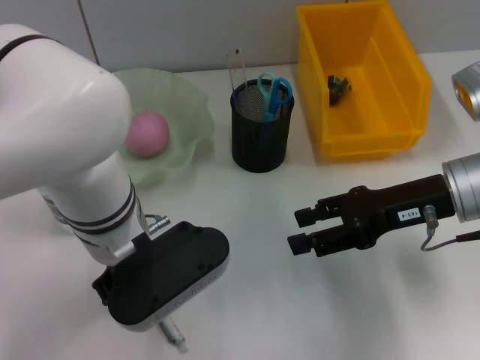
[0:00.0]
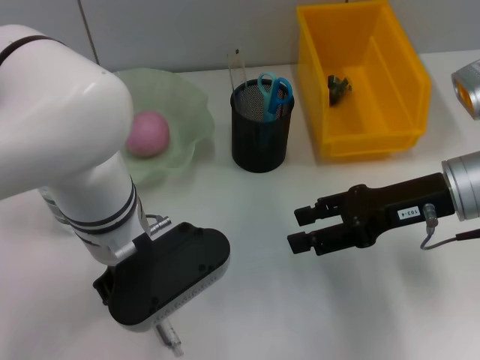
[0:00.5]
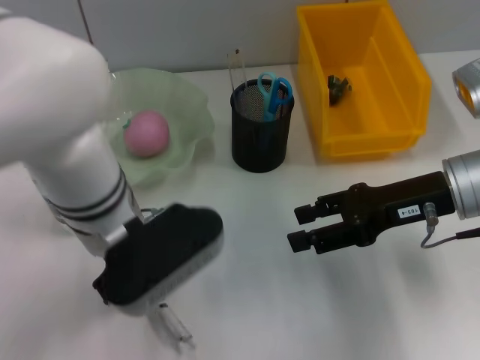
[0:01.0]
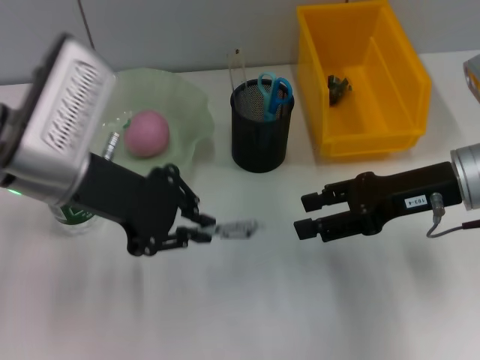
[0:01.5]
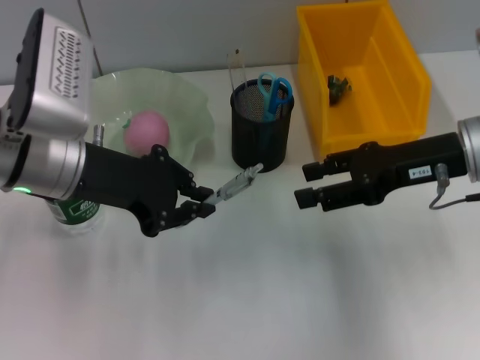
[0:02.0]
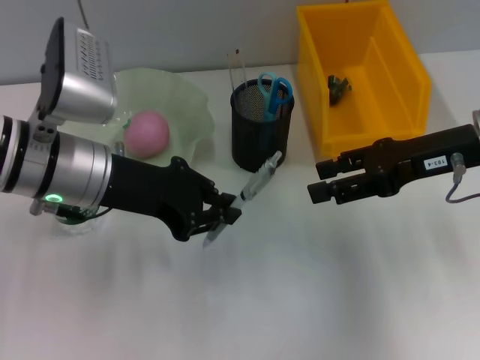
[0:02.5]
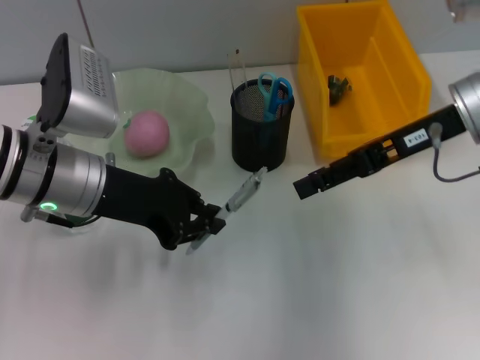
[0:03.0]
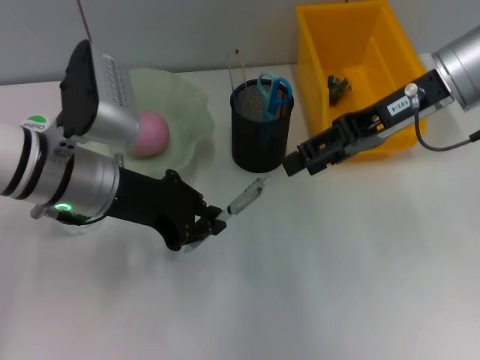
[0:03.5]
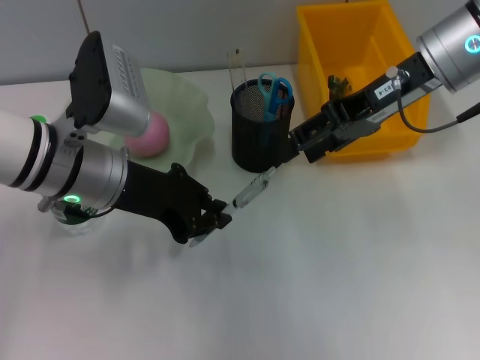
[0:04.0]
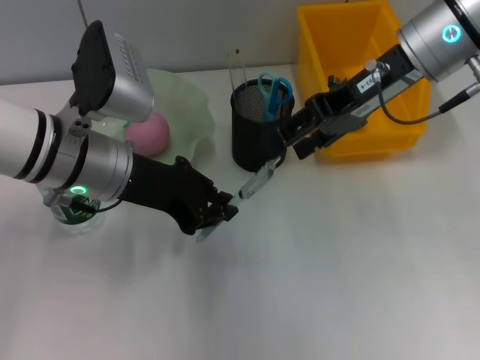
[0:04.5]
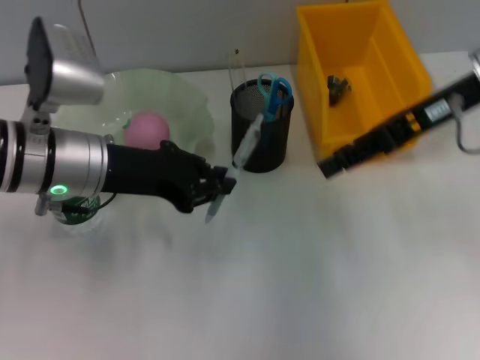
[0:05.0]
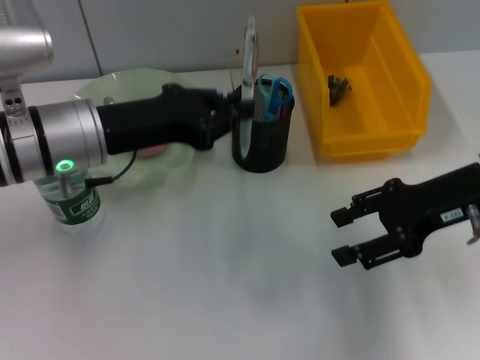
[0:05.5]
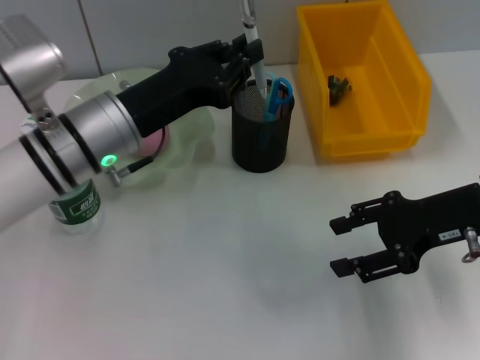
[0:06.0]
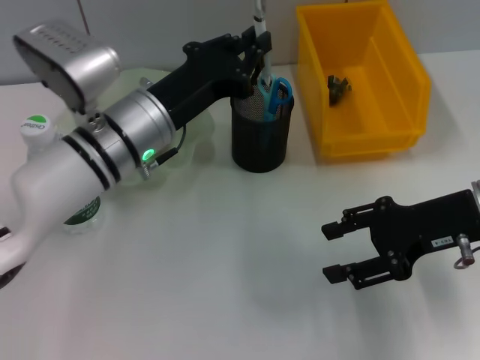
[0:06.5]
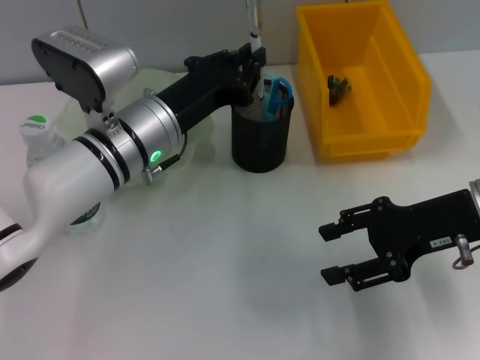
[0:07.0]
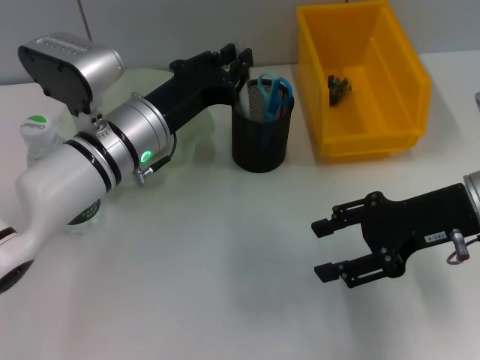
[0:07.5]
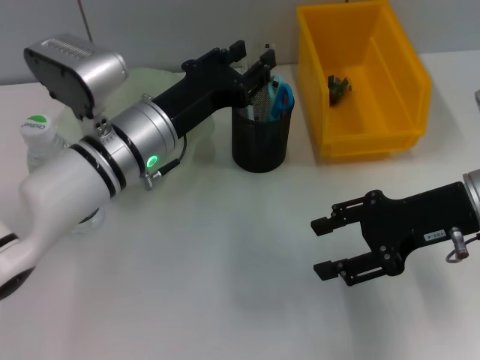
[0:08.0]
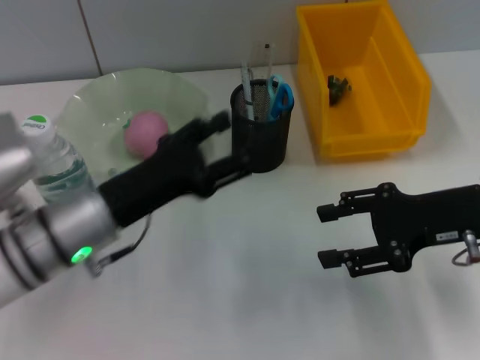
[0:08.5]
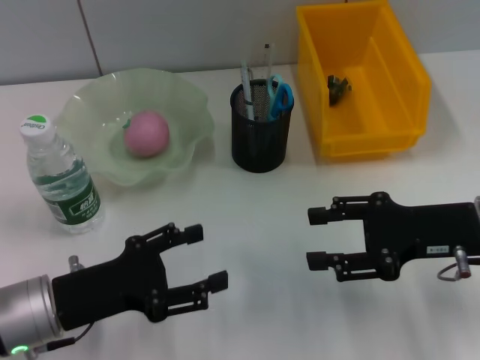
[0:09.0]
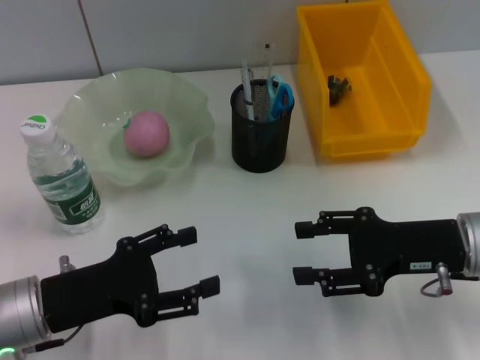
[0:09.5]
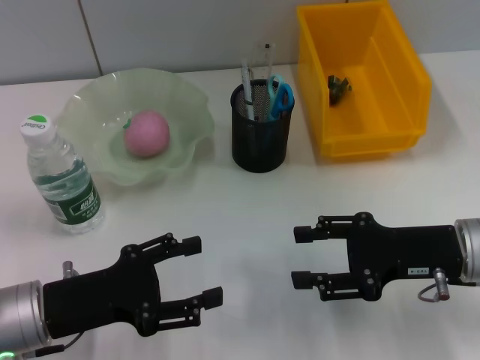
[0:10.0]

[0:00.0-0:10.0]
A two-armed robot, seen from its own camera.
Step, 0:00.5 to 0:08.0: Place the gray spring-action pen into the pen holder with the left hand.
0:00.0 to 0:02.0: The left gripper moves to the left, about 10 cm.
0:02.0 to 0:04.0: The right gripper goes some 10 cm upward and forward.
0:04.0 to 0:06.0: The right gripper moves downward, backward and to the right, roughly 15 cm.
0:06.0 to 0:08.0: The grippers make only small movements.
0:08.0 to 0:10.0: The left gripper travels backward, to the left and downward by about 20 cm, and opens its fingers, while the right gripper moves downward, some 5 cm.

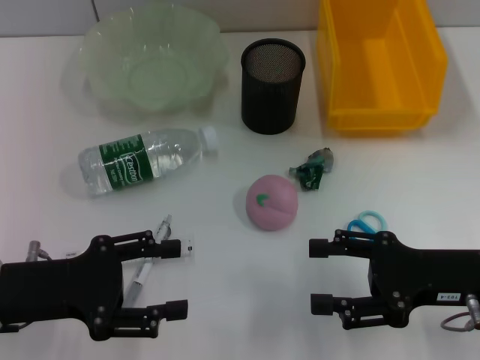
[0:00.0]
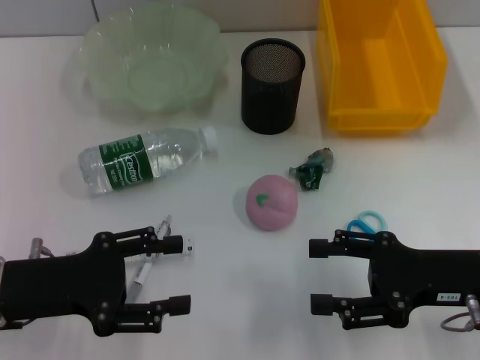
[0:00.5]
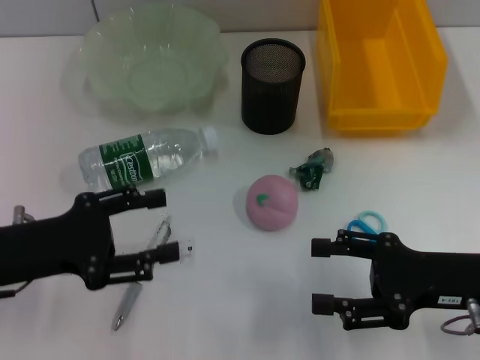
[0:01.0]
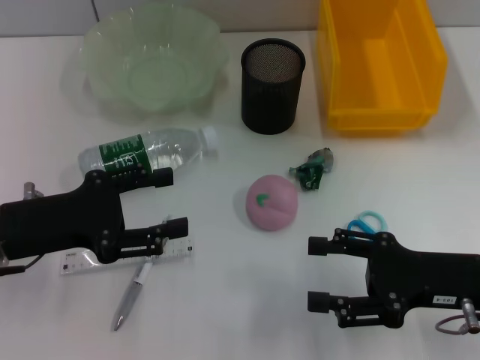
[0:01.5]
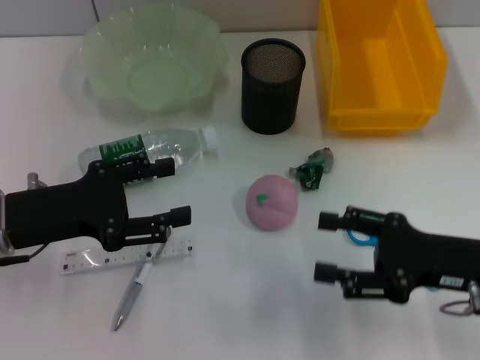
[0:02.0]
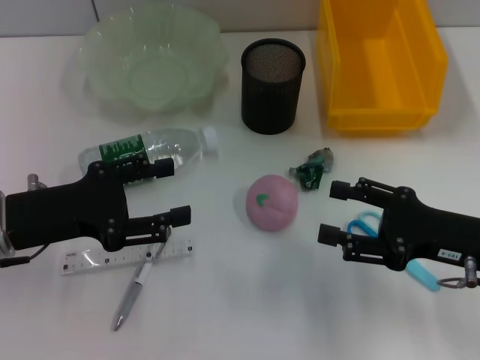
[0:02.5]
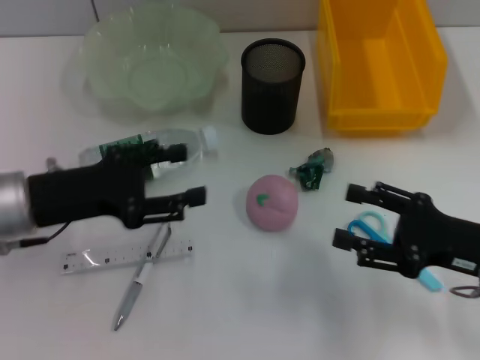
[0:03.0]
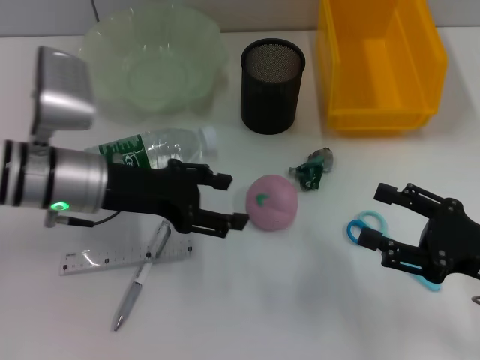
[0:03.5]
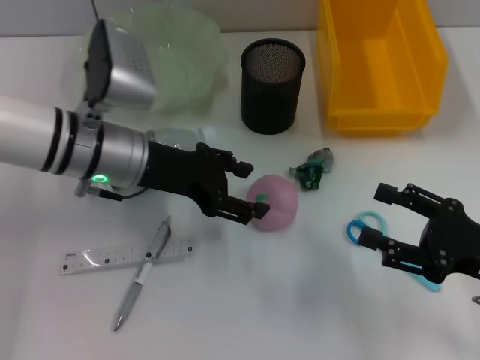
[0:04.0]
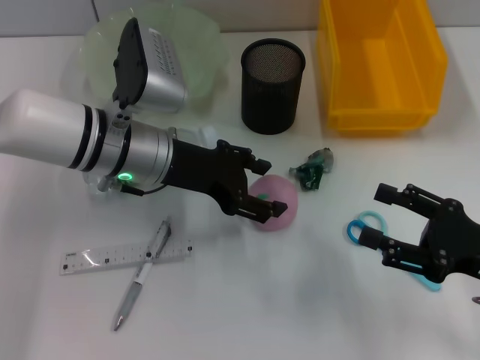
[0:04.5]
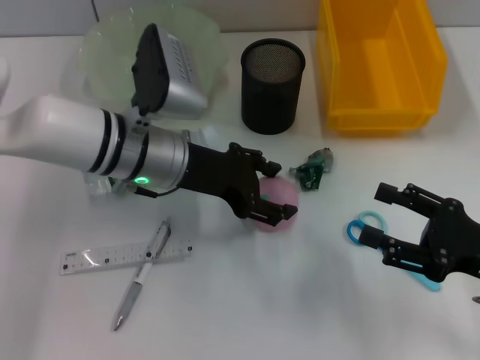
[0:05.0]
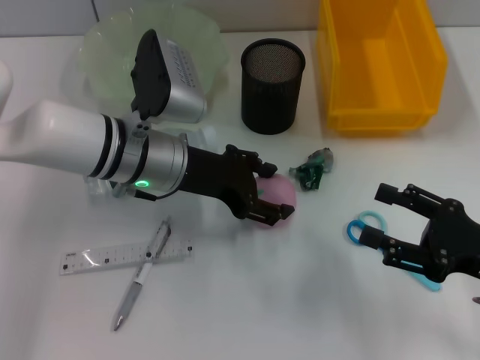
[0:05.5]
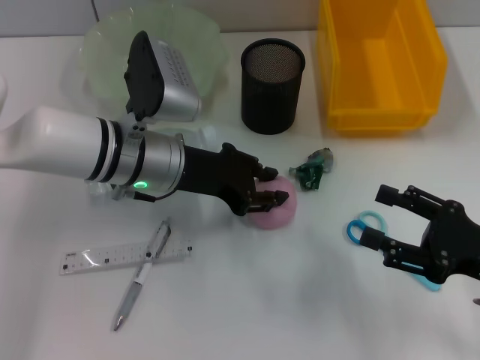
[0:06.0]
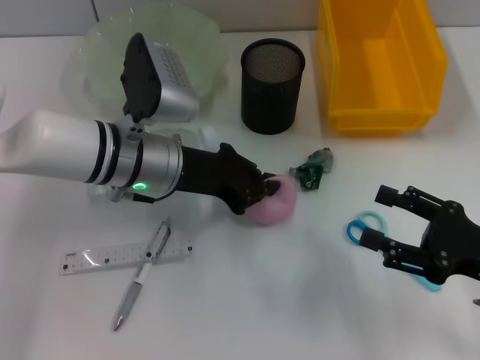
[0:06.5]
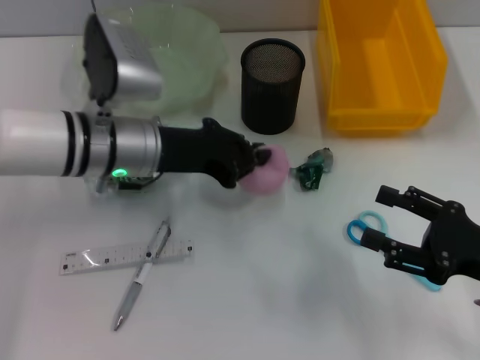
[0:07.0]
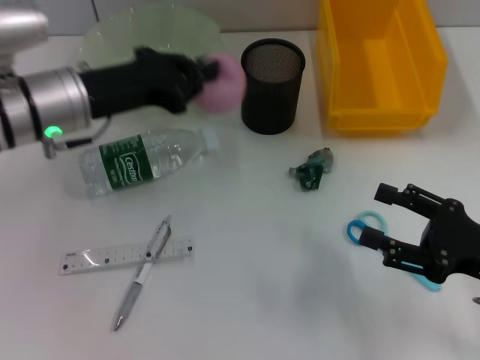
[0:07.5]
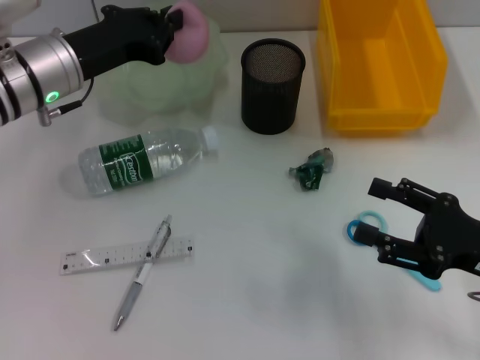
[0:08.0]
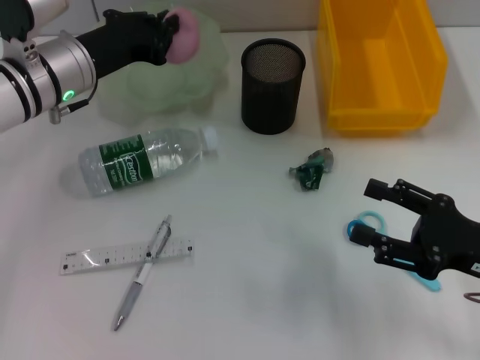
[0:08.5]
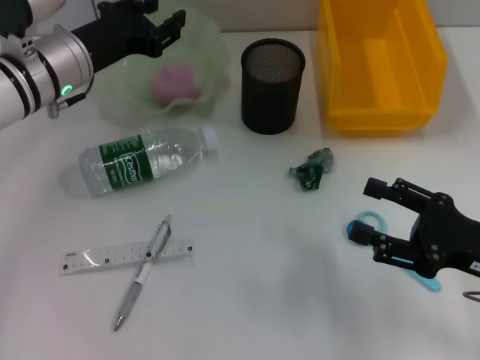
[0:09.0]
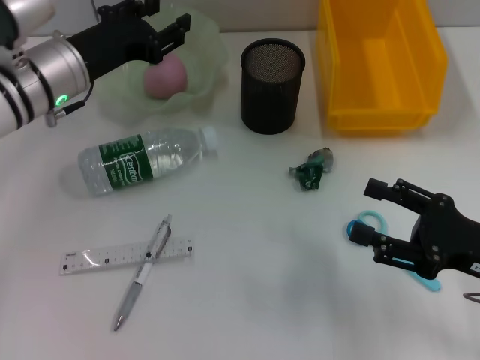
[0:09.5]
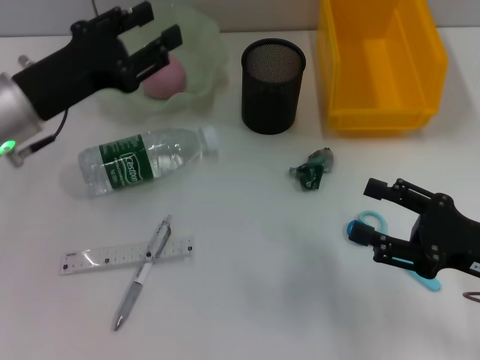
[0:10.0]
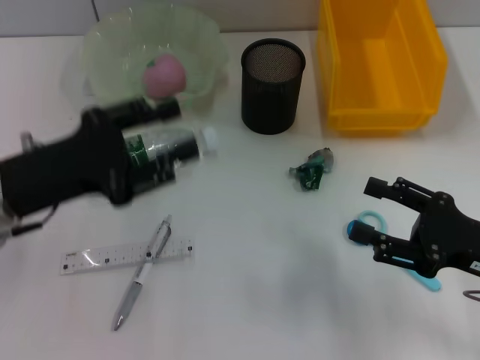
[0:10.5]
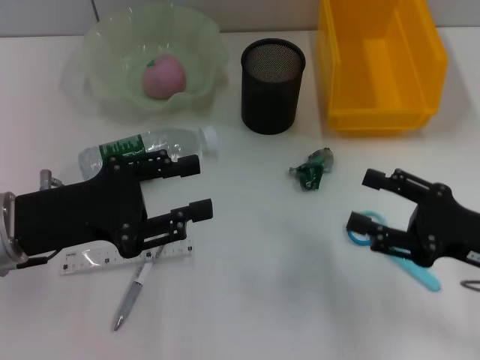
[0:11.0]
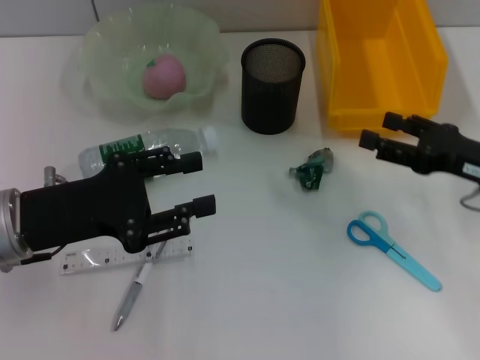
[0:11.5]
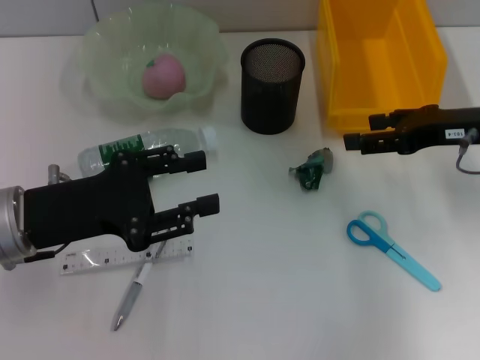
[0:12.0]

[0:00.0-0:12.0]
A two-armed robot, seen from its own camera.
Step, 0:00.0 to 0:06.0: Grab the peach with the left hand.
Step, 0:06.5 to 0:09.0: Place the peach into the fruit bowl with the left hand.
0:02.0 to 0:04.0: The left gripper goes some 15 cm to the right and forward.
0:04.0 to 0:06.0: There are only small adjustments of the grippers.
0:06.0 to 0:08.0: The left gripper travels to the left by approximately 10 cm, and closes up.
0:08.0 to 0:10.0: The left gripper goes approximately 5 cm backward, and opens up.
0:10.0 to 0:12.0: The right gripper goes some 15 cm forward and upward. The left gripper goes some 5 cm backward.

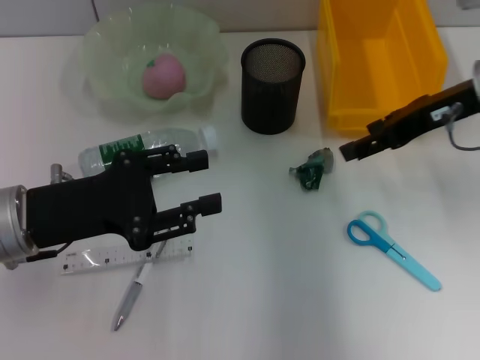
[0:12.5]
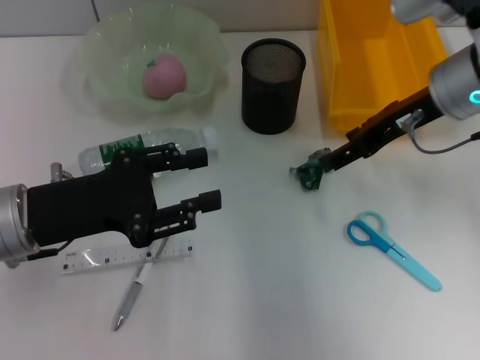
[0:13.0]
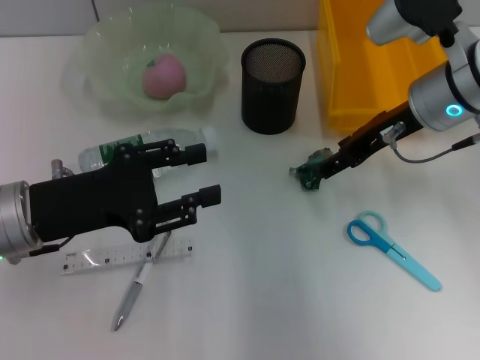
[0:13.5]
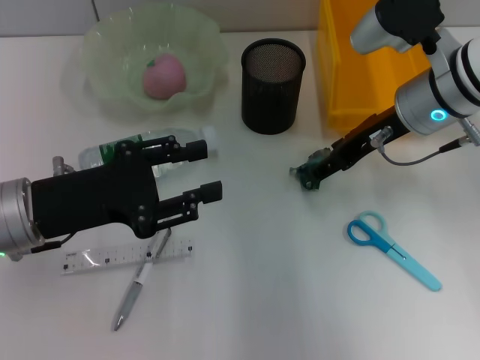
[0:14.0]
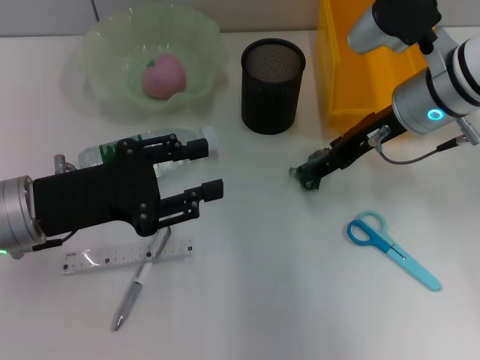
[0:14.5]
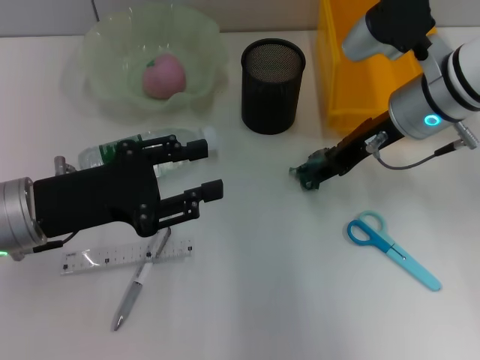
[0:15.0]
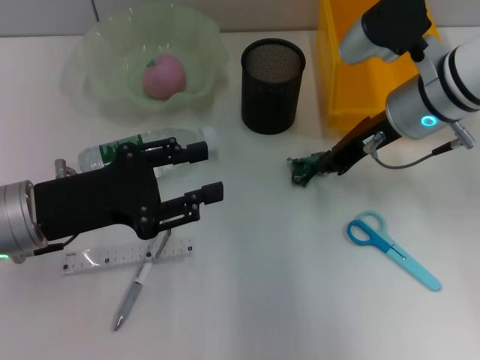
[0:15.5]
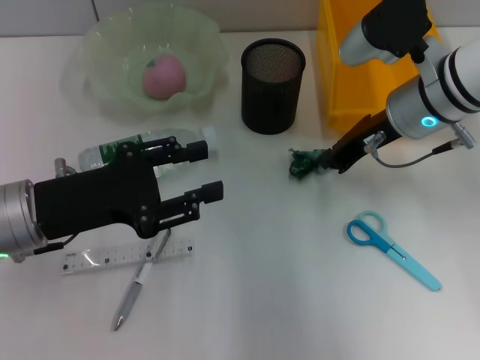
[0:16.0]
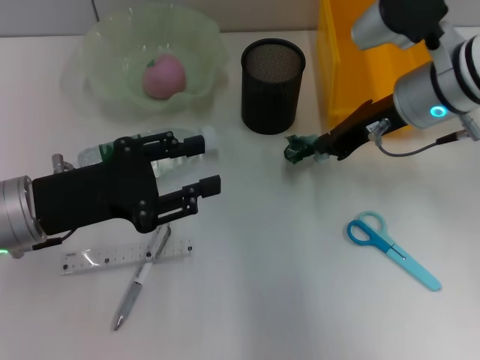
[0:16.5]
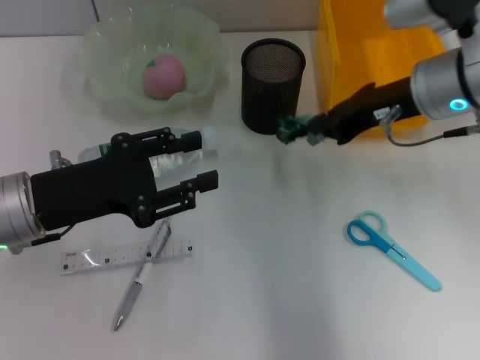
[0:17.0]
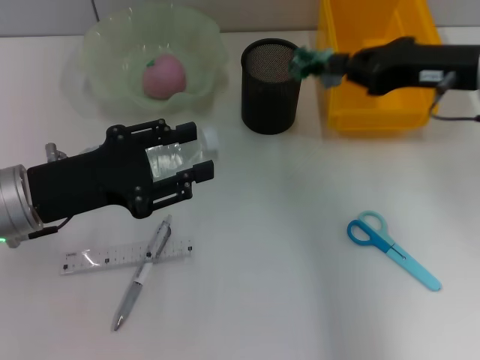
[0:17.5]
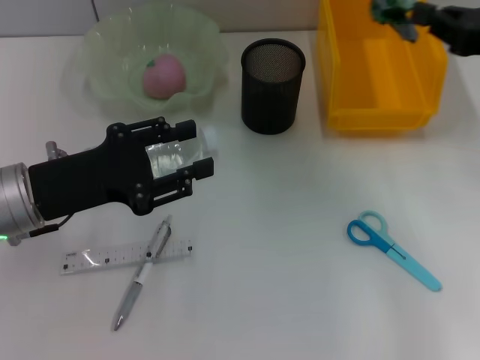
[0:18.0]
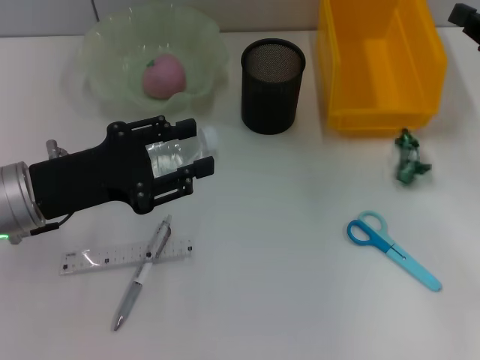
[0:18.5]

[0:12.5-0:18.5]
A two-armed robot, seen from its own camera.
Step, 0:12.5 to 0:15.5: Grab the plastic with the right hand.
0:12.5 to 0:14.5: The right gripper travels to the left by approximately 5 cm.
0:14.5 to 0:16.5: The right gripper closes its fingers.
0:16.5 to 0:18.5: The right gripper is displaced to the right by roughly 15 cm.
